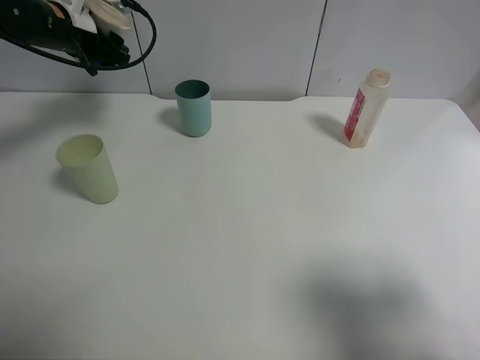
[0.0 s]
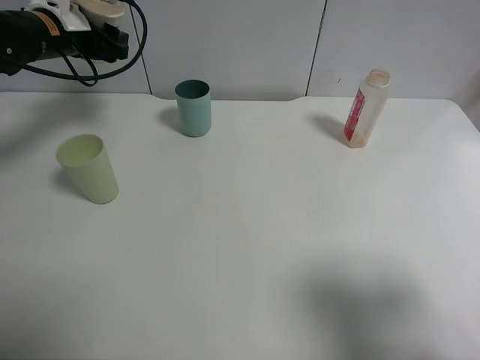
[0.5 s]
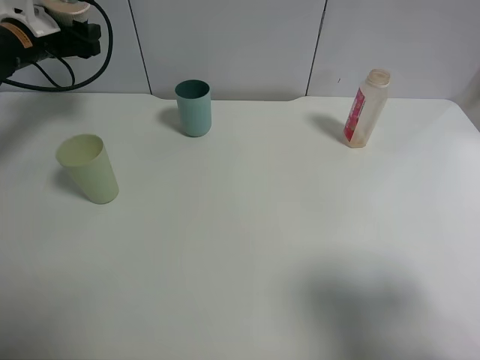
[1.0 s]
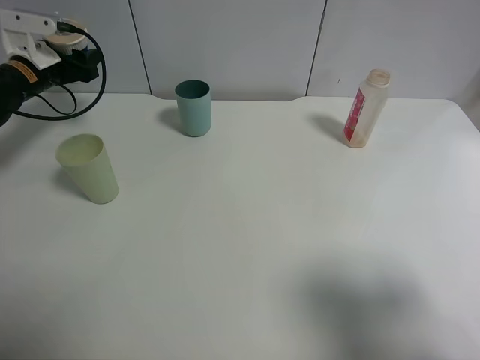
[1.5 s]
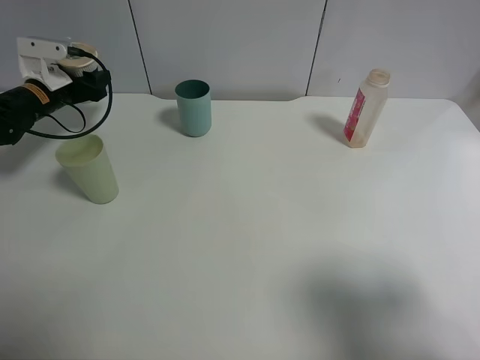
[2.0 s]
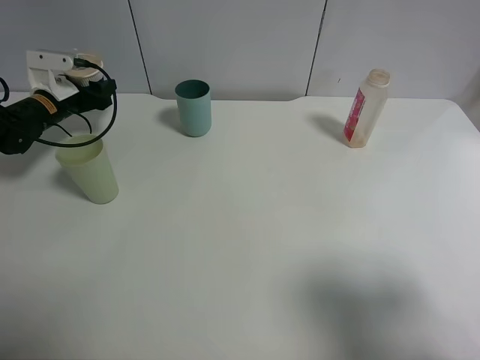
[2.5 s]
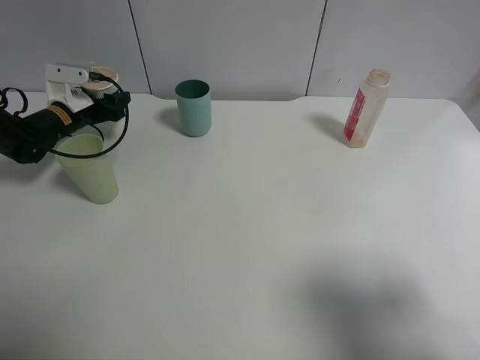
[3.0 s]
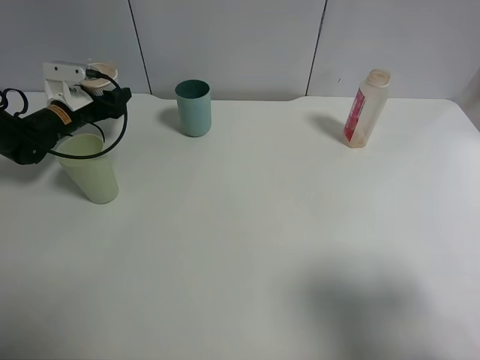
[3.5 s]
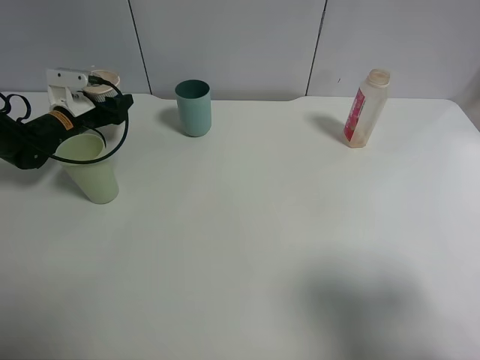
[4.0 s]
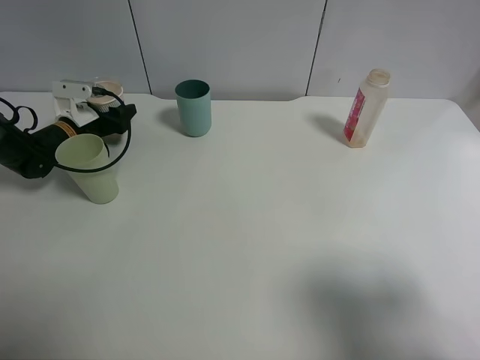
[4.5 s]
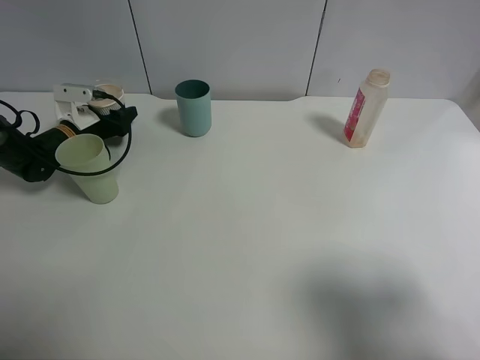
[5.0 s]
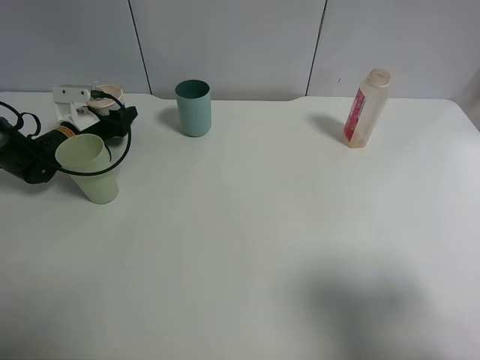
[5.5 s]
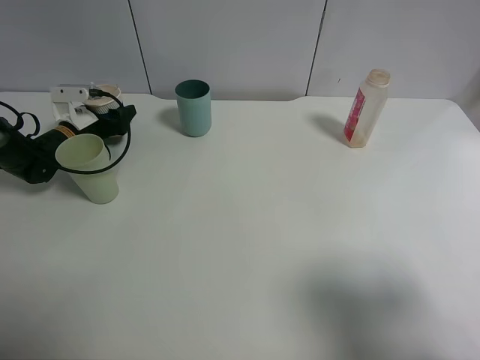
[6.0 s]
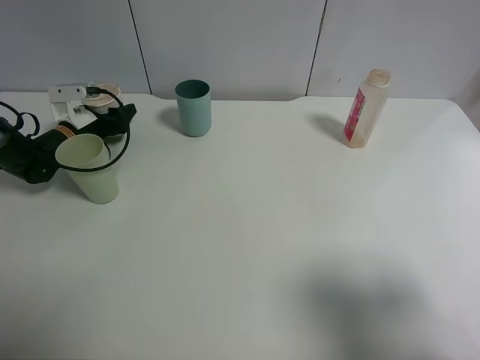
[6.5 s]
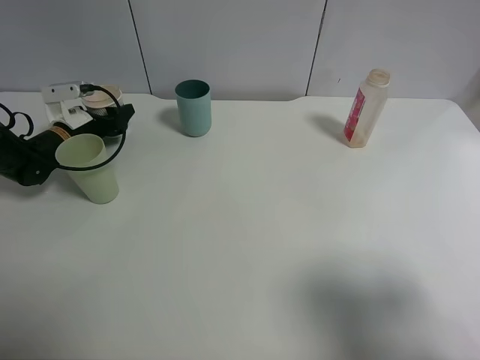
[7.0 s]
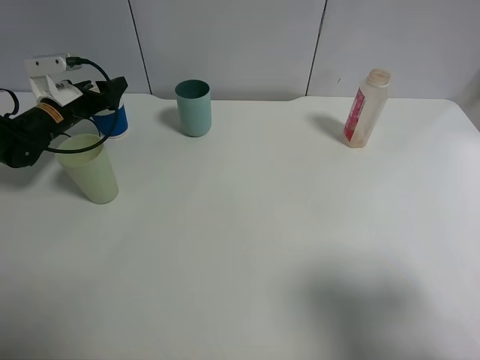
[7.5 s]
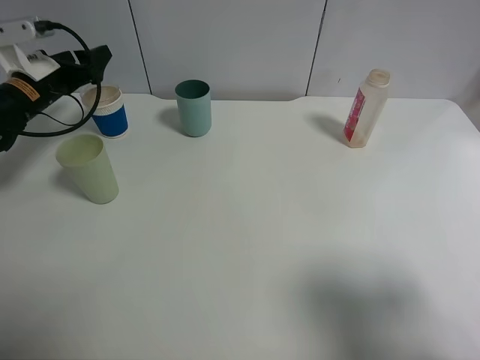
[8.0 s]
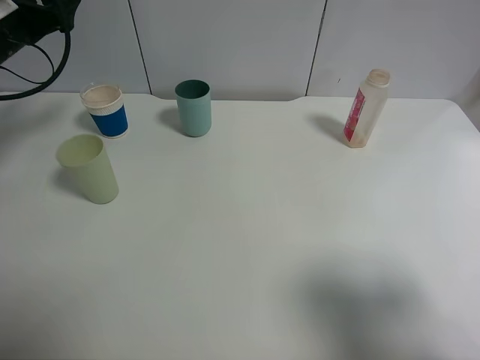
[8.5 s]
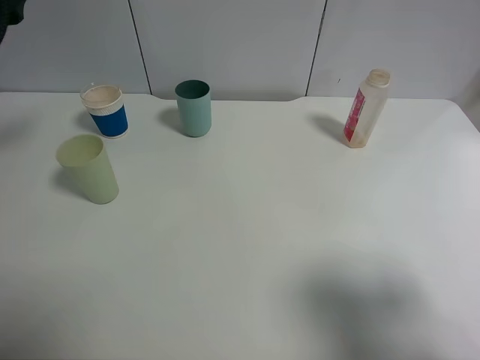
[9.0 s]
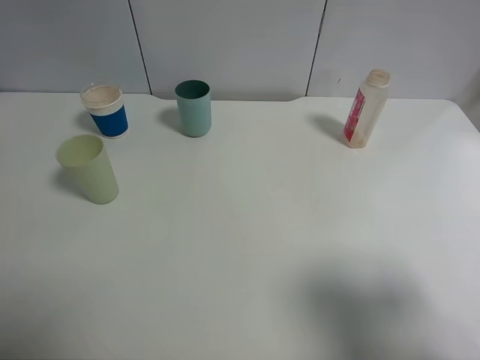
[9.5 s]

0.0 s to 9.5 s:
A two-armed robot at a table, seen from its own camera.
Task of the whole recording: use a clamp to hold the bottle of the drink, pour the beverage into a random cup, then clamp the cup containing the drink and pour the drink into another random cup.
Step, 0.0 to 7.5 s: Place the paper cup on the table with left gripper.
0.0 to 2.0 s: The left gripper travels downward and to the left by some 15 cm.
2.0 to 4.0 s: The left gripper travels downward by roughly 5 cm.
4.0 to 5.5 s: The grippers move only a little.
5.5 to 7.5 s: The left gripper opens its fingers.
7.5 to 9.5 s: The left gripper goes about 30 cm backward and upward.

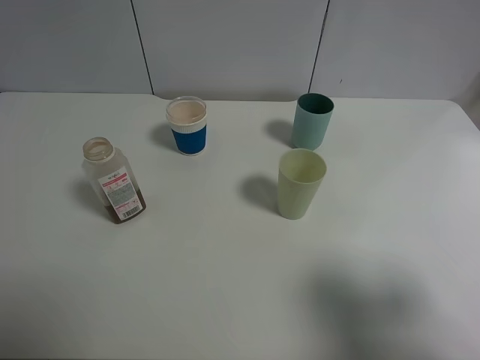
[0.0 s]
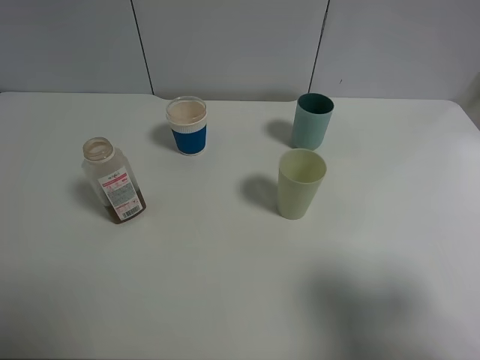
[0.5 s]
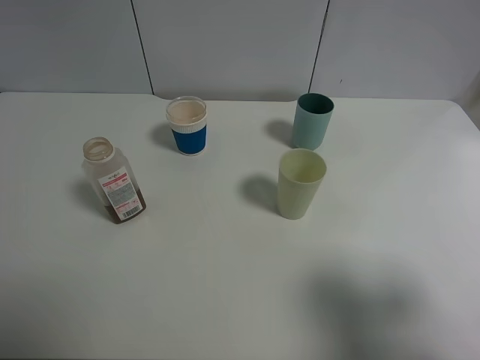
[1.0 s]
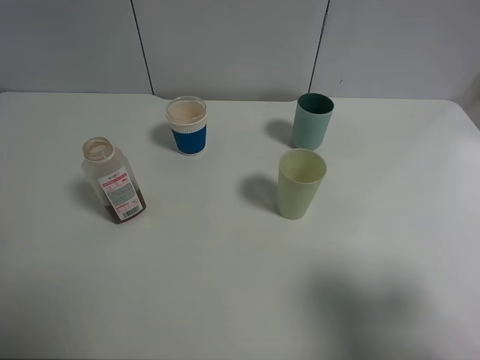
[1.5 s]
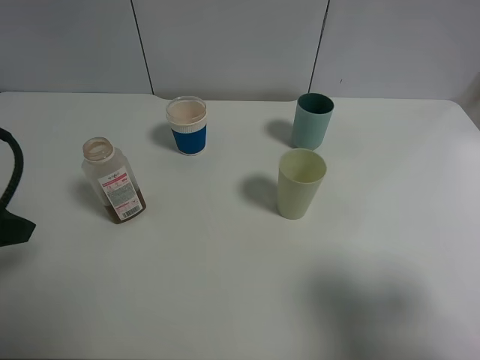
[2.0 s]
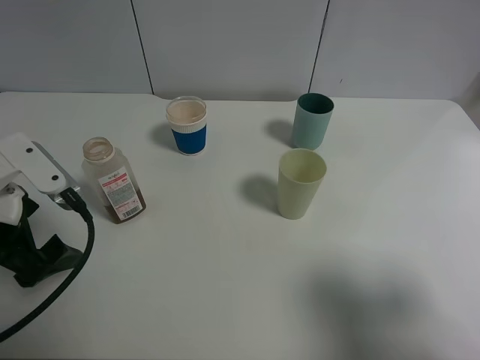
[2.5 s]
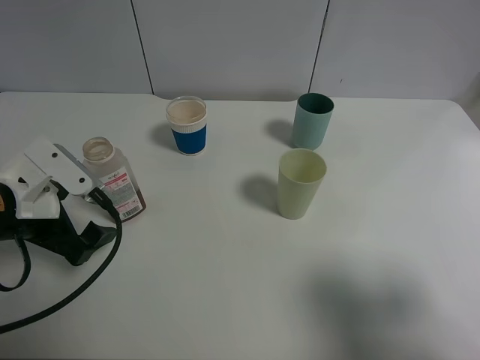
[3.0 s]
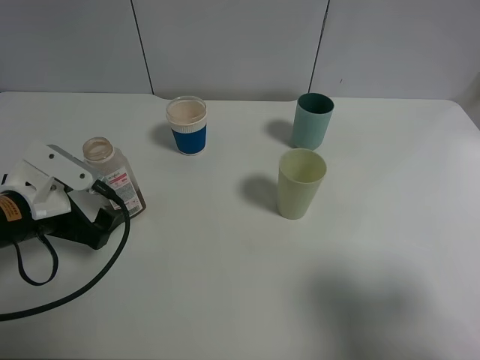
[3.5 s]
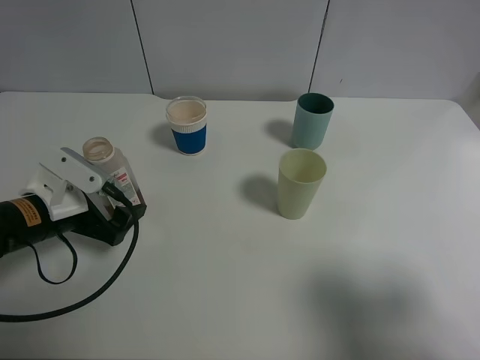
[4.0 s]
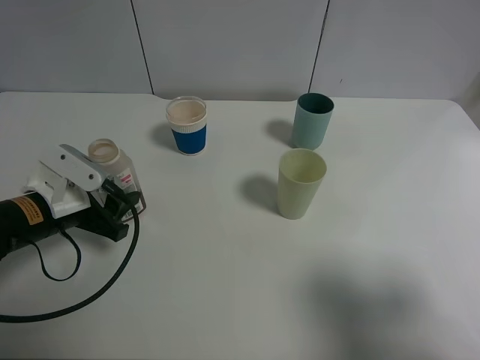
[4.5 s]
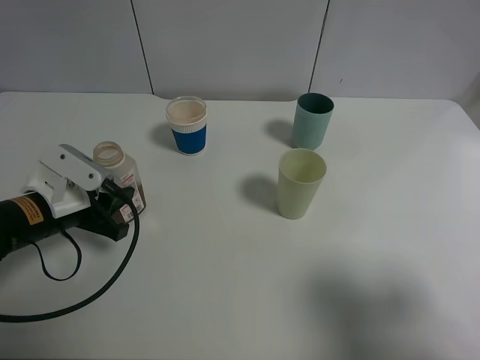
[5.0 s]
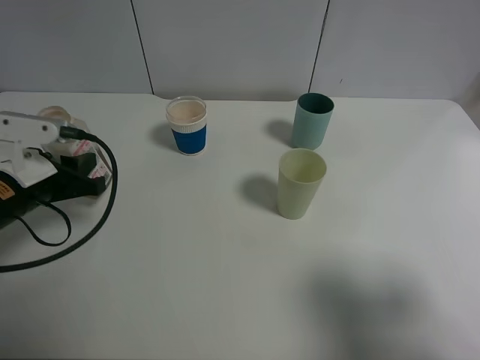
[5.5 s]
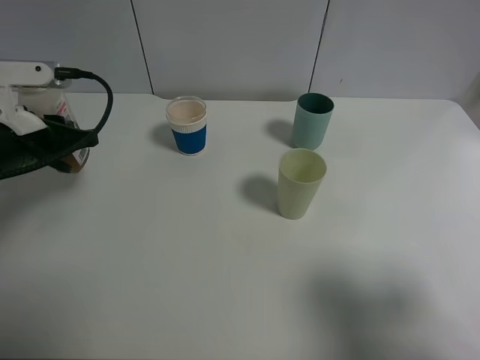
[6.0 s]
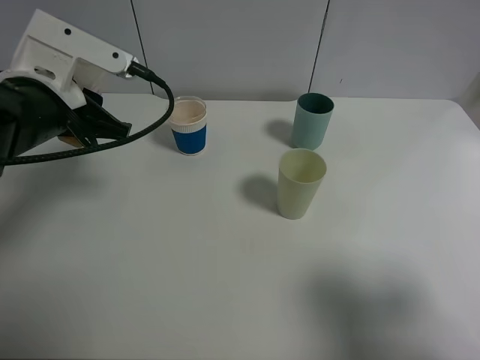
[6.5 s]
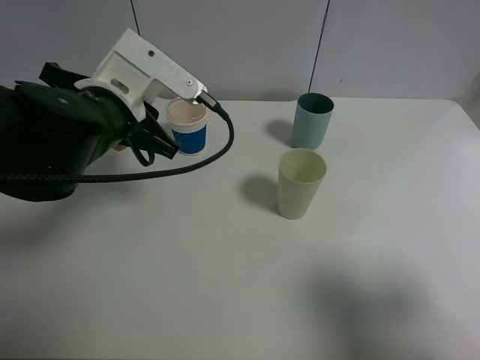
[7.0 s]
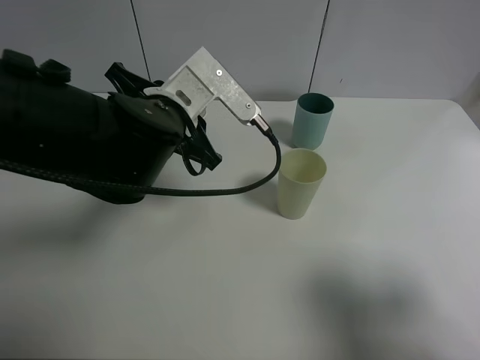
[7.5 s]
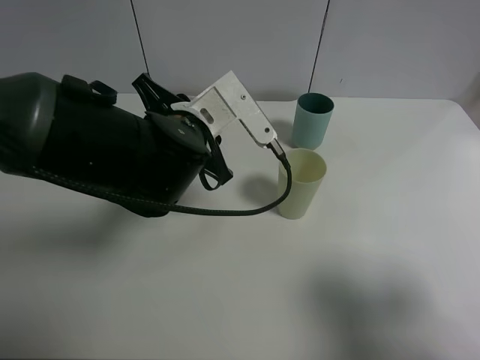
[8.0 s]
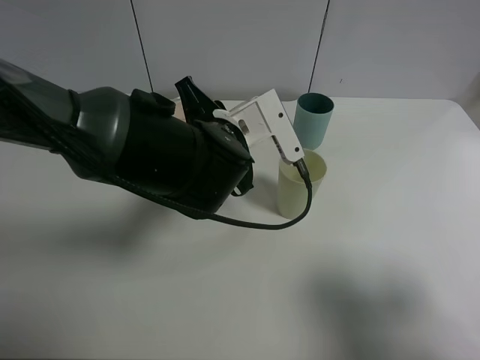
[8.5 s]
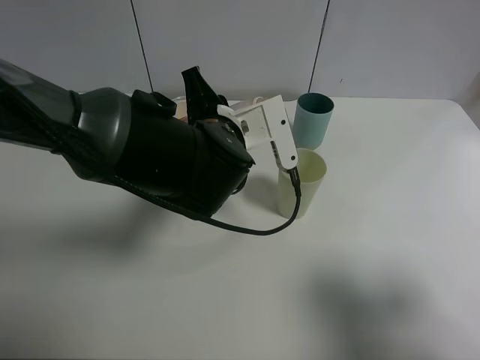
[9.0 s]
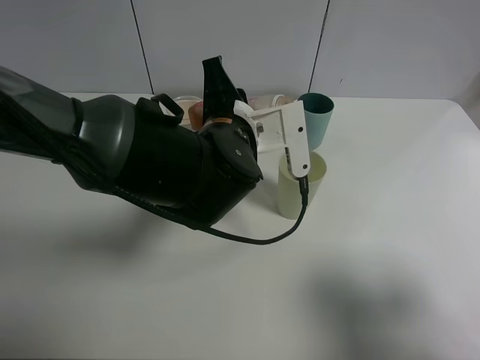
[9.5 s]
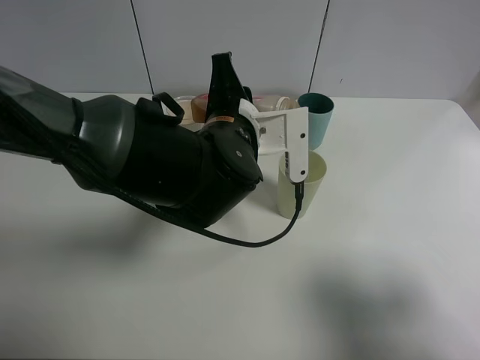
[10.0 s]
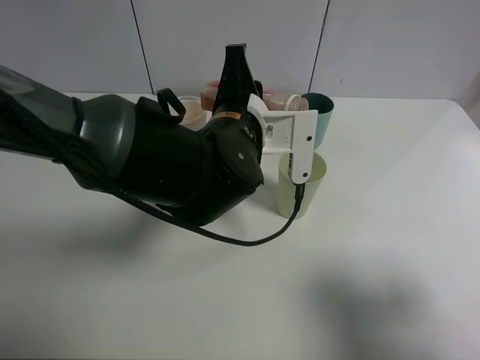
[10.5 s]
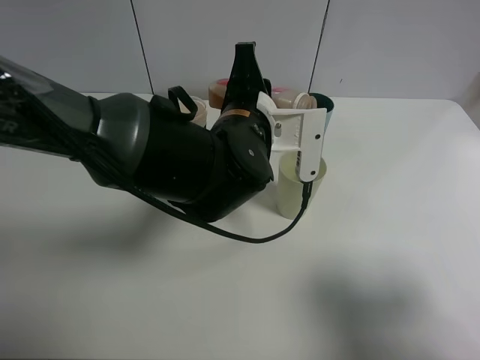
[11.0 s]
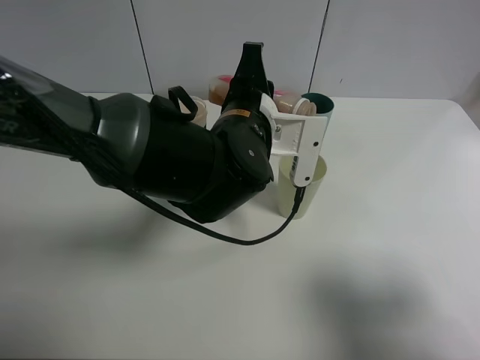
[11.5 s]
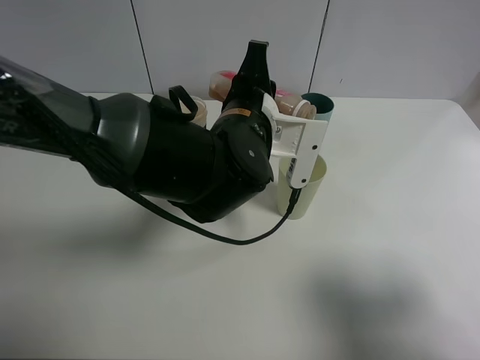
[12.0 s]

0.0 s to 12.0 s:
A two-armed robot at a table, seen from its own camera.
Task of the whole recording: use a clamp to hold the bottle of the drink, pour the beverage into a random cup, then clamp the cup containing the drink and pour the drink into another random cup.
Step, 0.0 to 5.0 s: Pick up the drink bottle with left gripper.
0.0 to 2.0 s: The left gripper goes approximately 15 cm forward.
2.0 to 4.0 s: The left gripper moves downward and forward, roughly 15 cm.
4.0 to 6.0 s: The left gripper moves upward, roughly 10 cm, and closes.
6.0 to 8.0 s: The left gripper moves to the right, about 20 cm.
10.0 to 12.0 s: The grippers make only small movements.

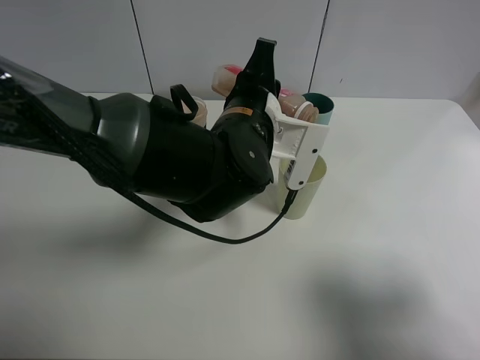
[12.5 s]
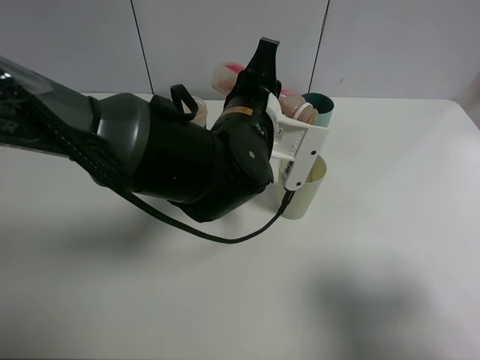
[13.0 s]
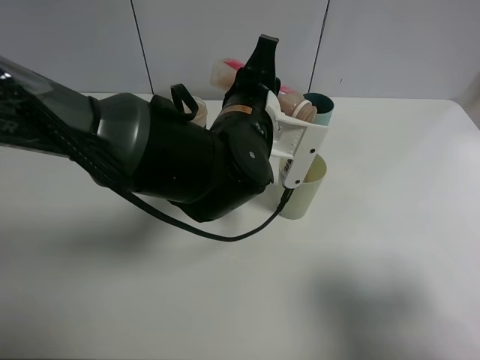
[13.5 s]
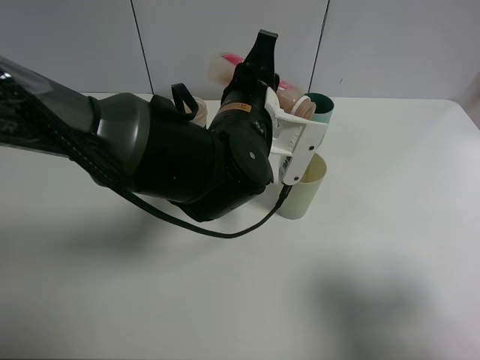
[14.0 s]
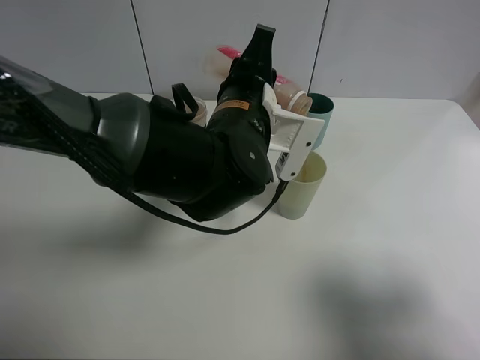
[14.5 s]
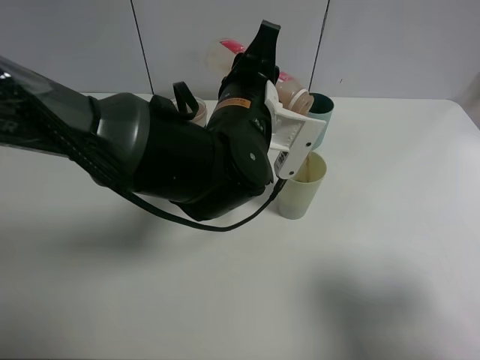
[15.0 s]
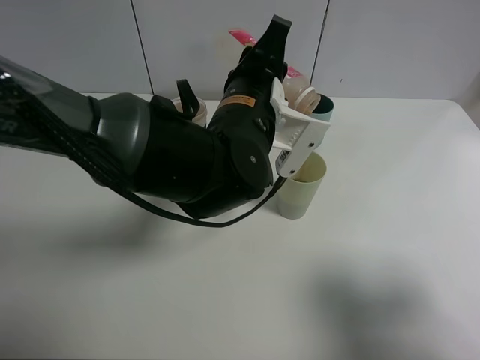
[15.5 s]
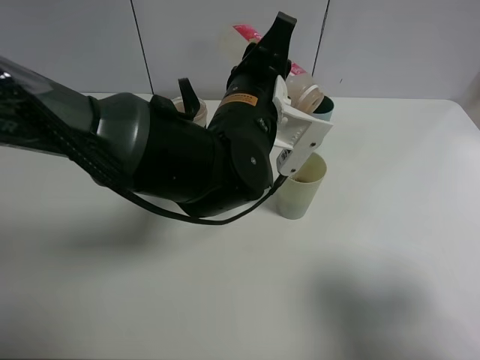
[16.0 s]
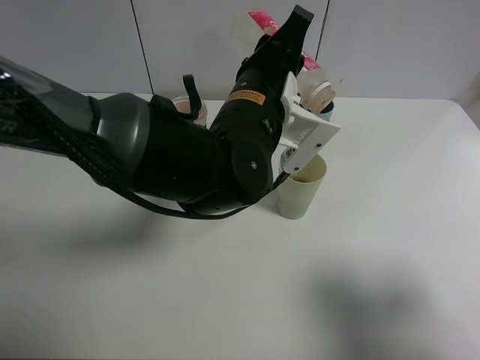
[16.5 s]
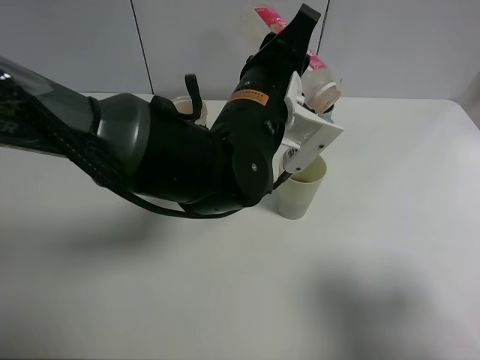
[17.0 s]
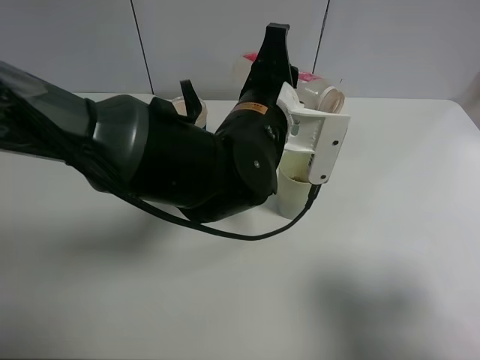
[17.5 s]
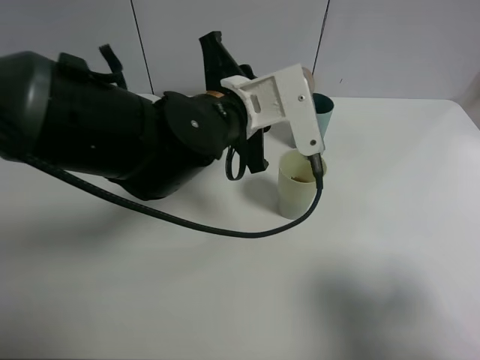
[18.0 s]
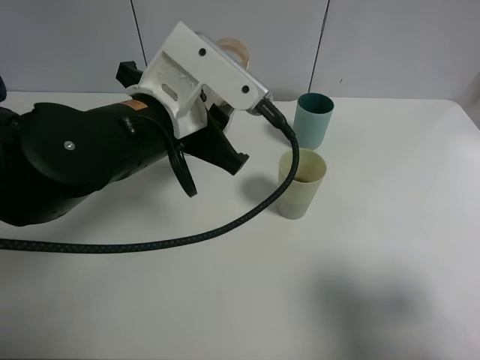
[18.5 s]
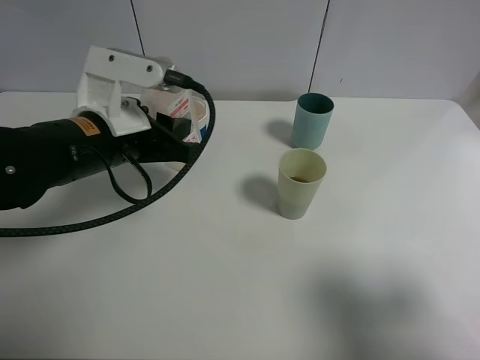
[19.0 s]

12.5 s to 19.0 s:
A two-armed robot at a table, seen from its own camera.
Task of the whole recording: use a clamp to hold the bottle of the drink, pour the beverage into a random cup, then clamp the cup containing the drink and pour the drink into another random cup.
Step, 12.5 to 17.0 s: Pour the drink into the green plastic cup with left gripper.
12.5 to 14.5 s: The grippers stay close to where they were, moving slightly.
14.5 to 17.0 s: The grippers stay close to where they were, moving slightly.
17.0 to 19.0 s: The left gripper moves to the left, roughly 15 cm.
